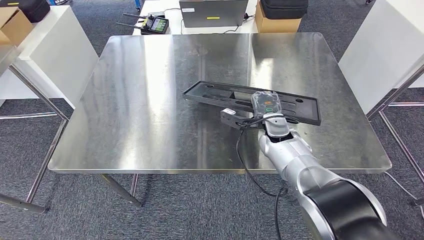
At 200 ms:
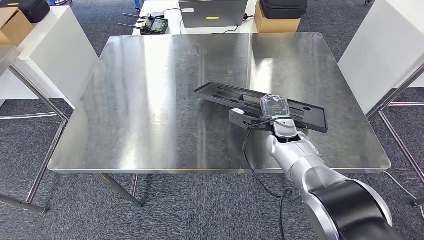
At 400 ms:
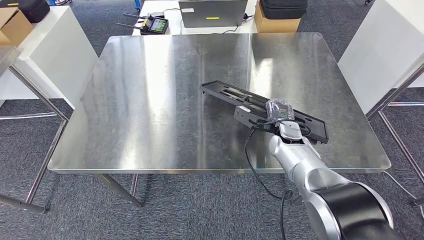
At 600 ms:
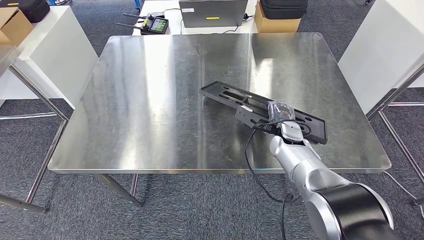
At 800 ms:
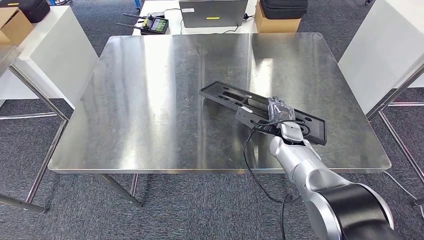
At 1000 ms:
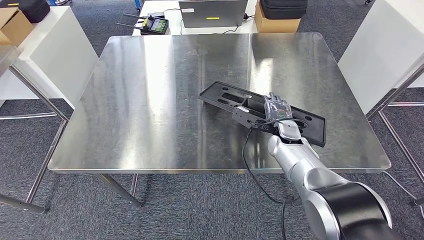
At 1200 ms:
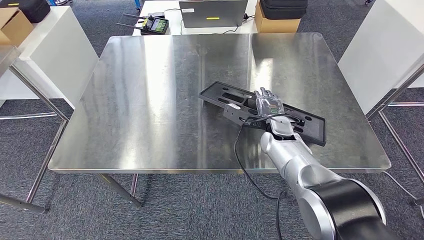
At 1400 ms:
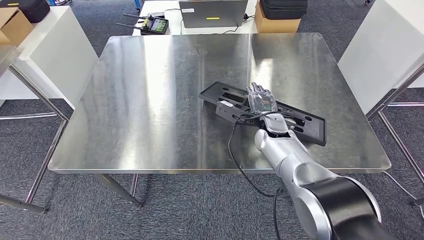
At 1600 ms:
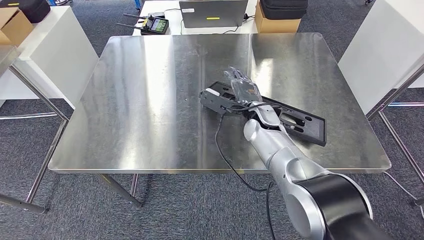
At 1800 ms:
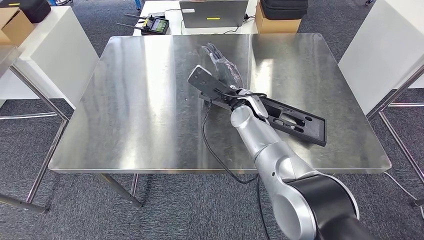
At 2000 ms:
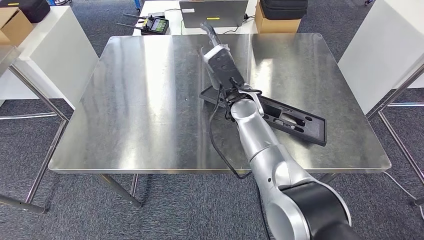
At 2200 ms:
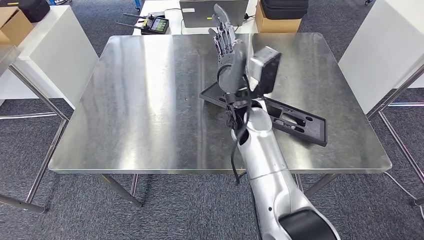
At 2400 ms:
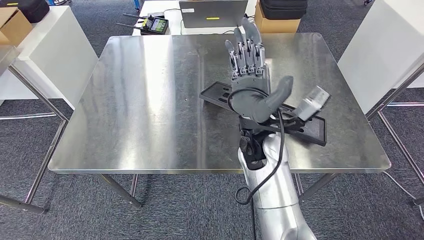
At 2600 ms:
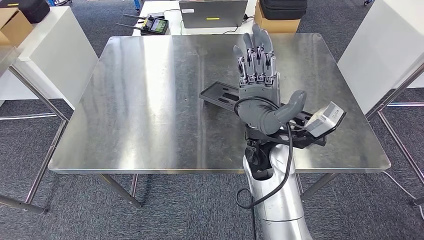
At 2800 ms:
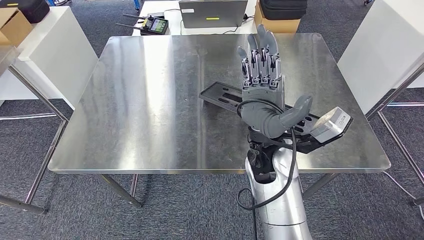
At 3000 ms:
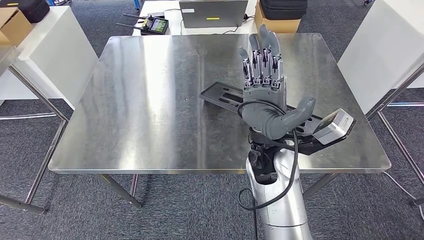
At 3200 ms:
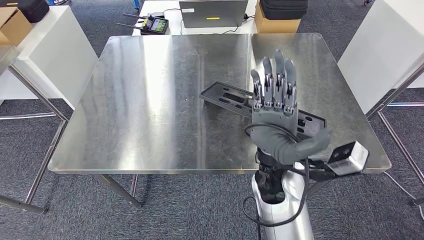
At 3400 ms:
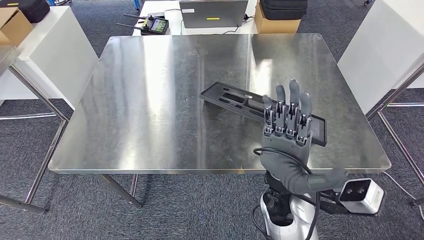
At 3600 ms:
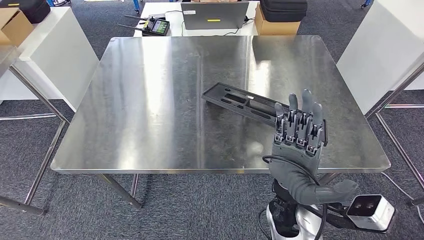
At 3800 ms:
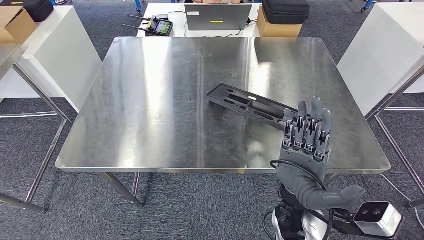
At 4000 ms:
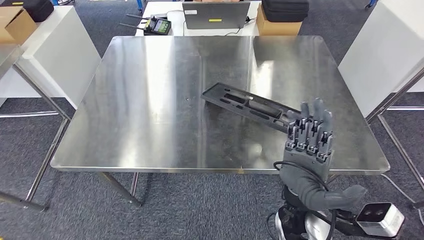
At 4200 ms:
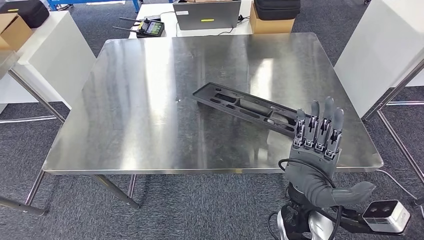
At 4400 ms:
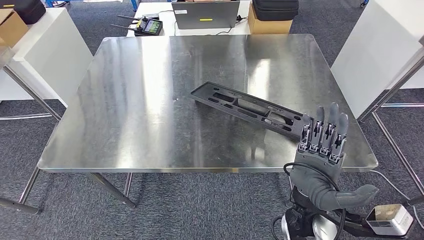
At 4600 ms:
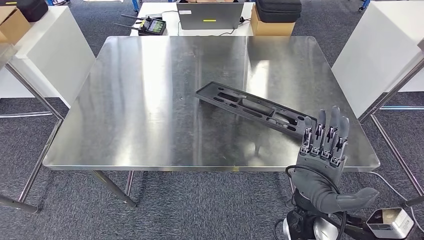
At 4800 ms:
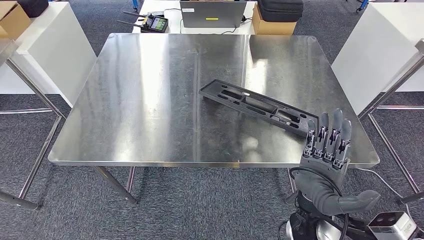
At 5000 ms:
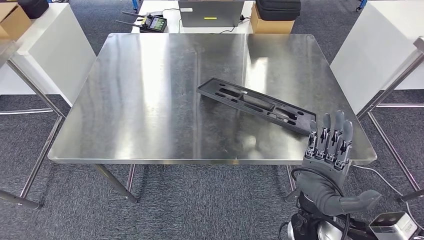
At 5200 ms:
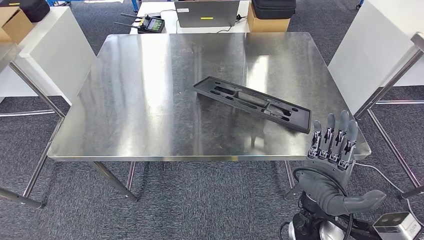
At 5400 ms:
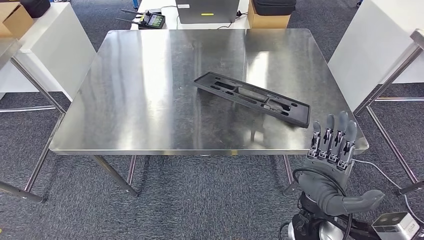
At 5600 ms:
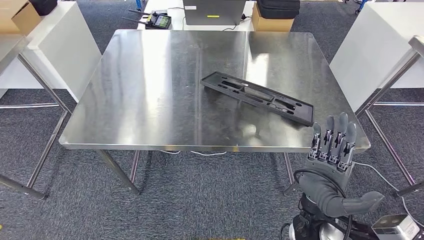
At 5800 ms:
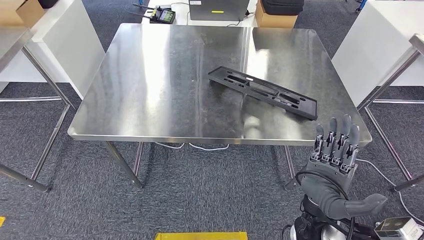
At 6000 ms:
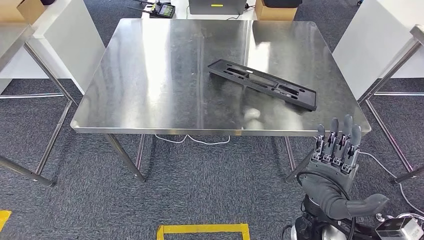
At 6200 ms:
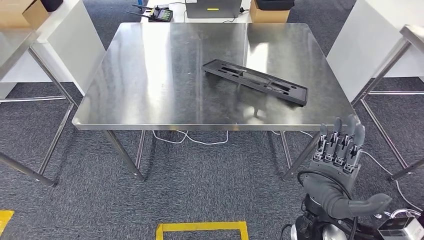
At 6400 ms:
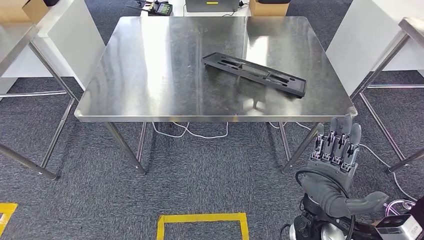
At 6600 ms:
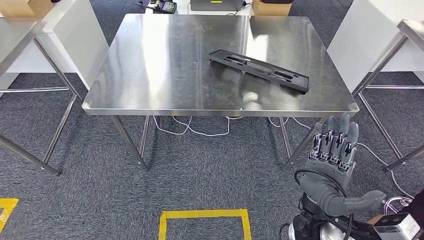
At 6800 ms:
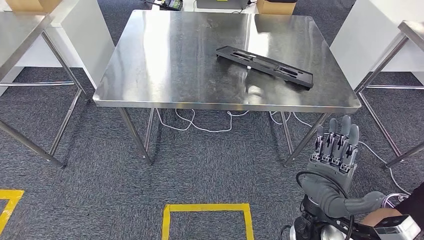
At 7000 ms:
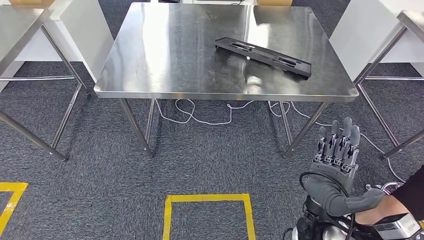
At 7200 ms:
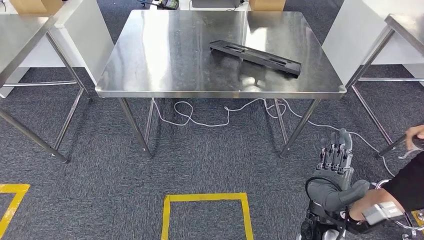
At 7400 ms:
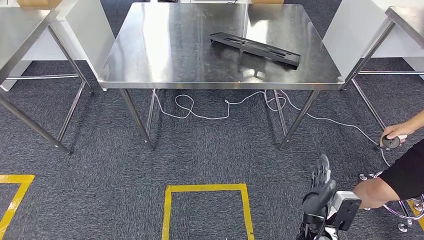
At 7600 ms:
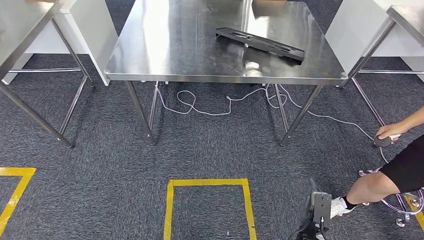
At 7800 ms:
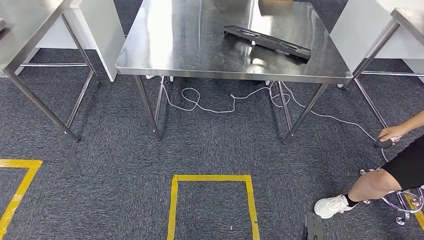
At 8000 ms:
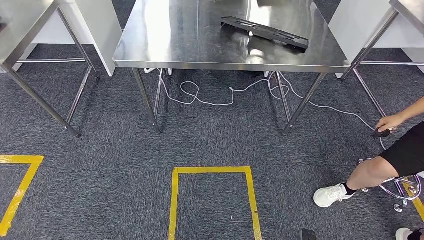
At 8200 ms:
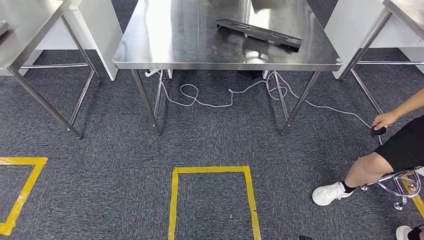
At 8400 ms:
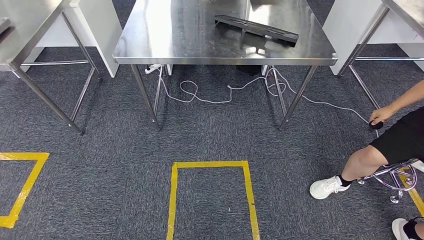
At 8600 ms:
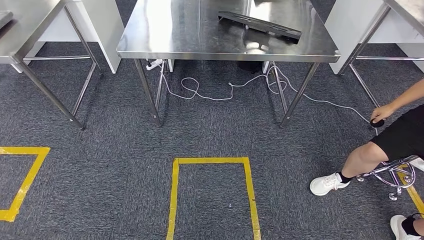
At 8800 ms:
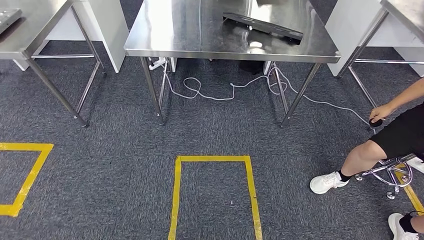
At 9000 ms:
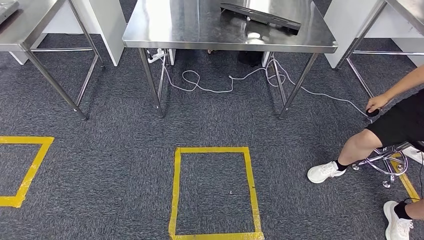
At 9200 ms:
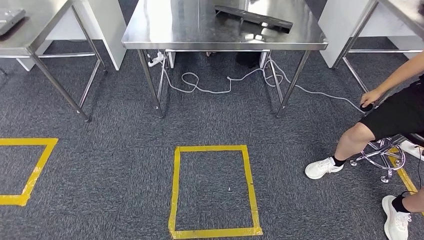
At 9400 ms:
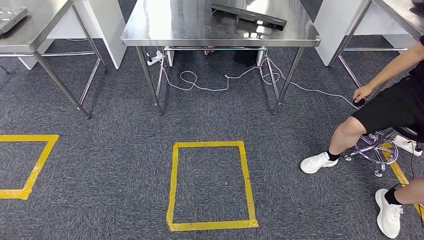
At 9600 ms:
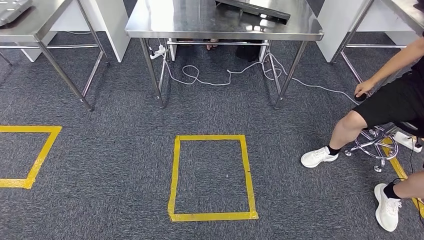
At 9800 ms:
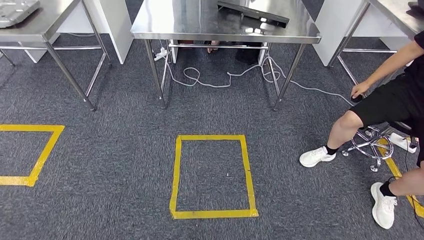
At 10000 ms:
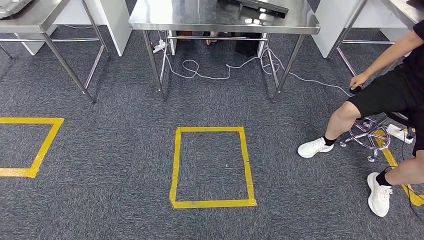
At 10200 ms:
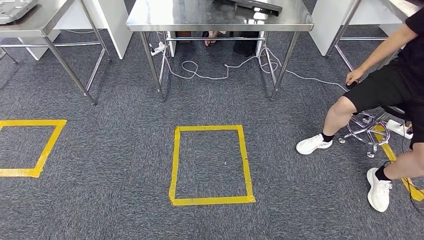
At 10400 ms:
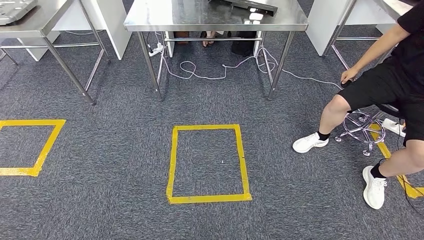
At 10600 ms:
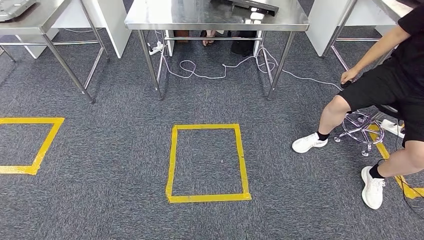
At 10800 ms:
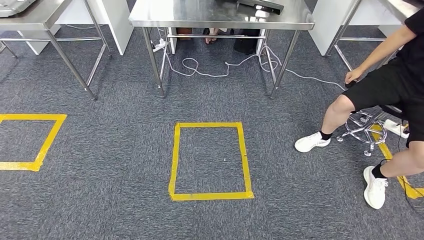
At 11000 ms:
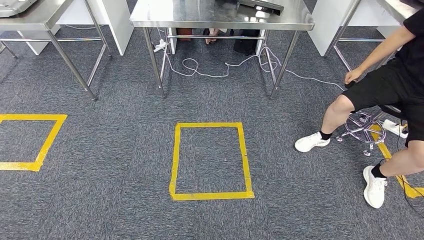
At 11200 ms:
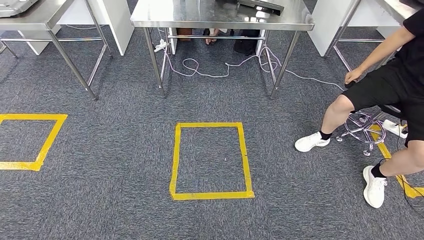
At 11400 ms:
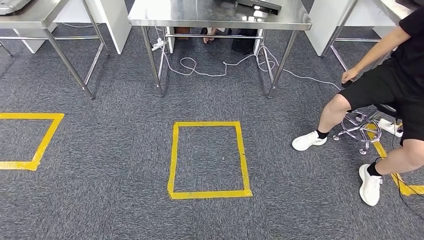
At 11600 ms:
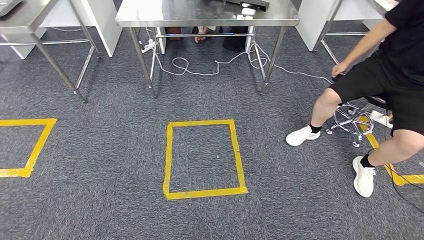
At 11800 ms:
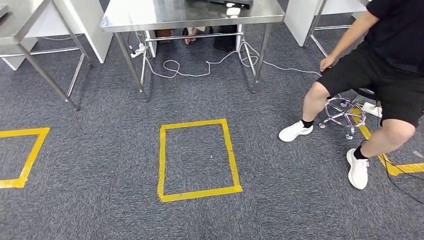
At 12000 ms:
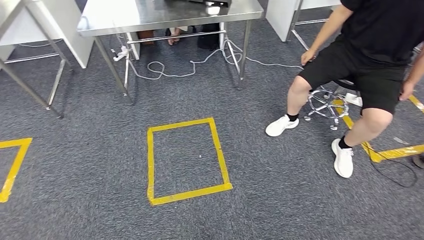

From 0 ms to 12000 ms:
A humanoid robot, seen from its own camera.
Step, from 0 ms to 7200 ms: Insert the large material into the corresponding slot on the workbench.
From 0 ms to 1600 ms: The right hand ends up about 5 cm from where it was.
From 1600 ms to 3000 ms: The right hand shifts roughly 15 cm backward and upward.

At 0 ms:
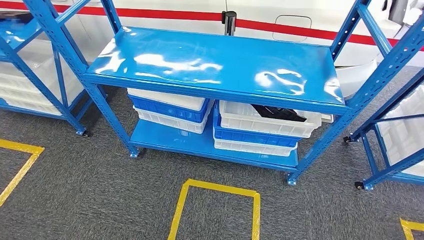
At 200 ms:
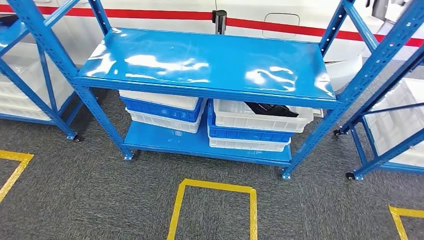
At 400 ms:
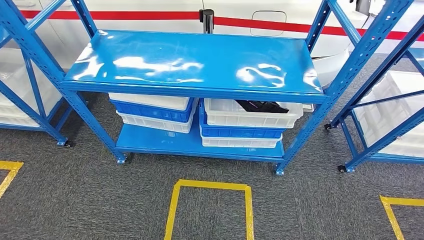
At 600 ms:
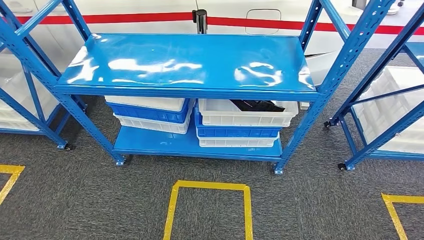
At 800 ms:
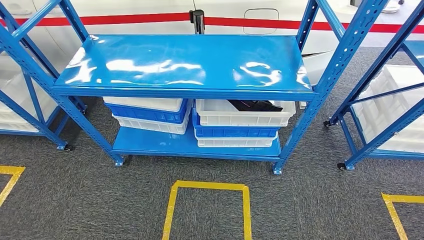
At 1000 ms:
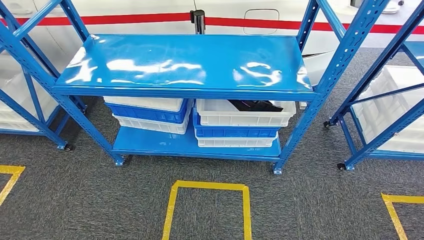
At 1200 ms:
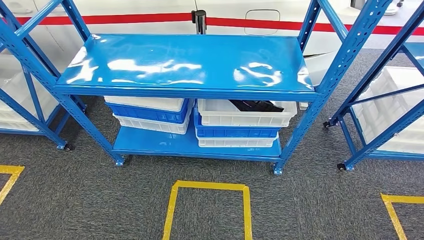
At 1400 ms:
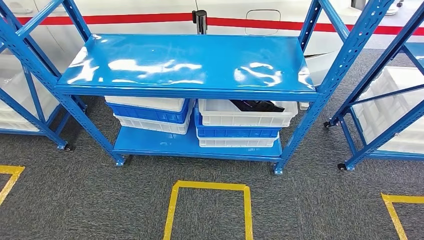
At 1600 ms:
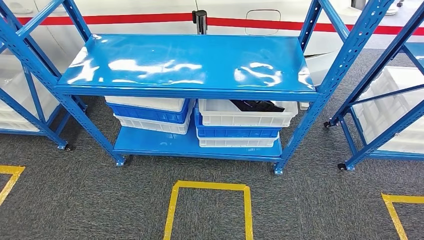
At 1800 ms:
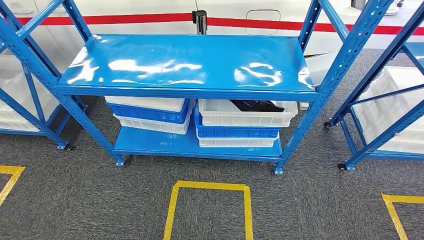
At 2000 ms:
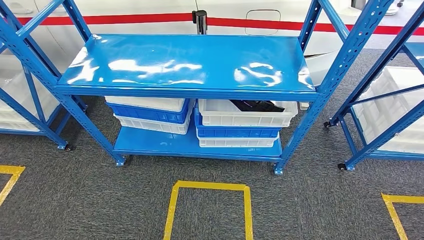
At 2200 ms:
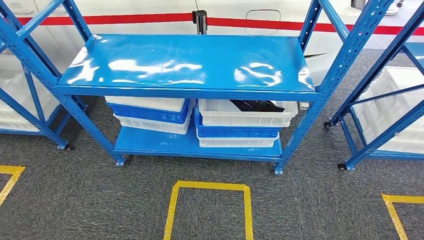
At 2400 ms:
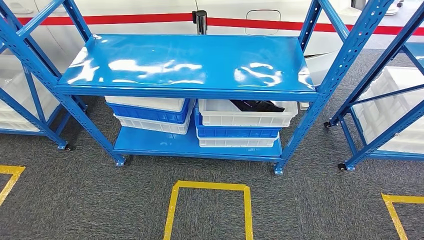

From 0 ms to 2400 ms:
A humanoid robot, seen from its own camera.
Step, from 0 ms to 2400 ms: Move to the initial position of the shelf.
From 1200 ms to 2400 ms: The hands move only a little.
